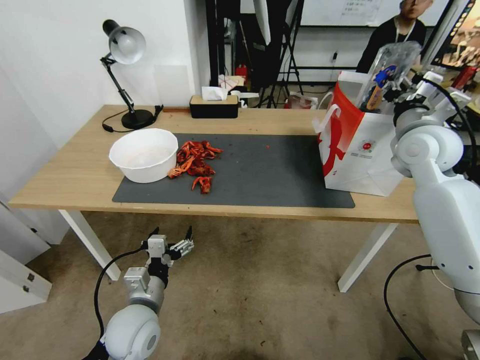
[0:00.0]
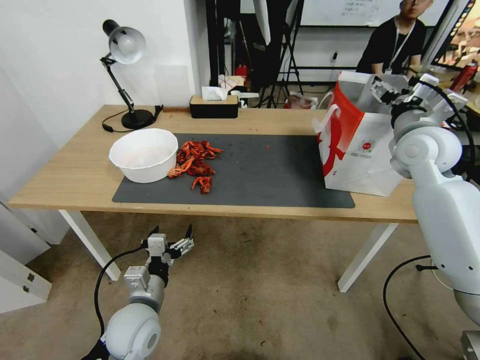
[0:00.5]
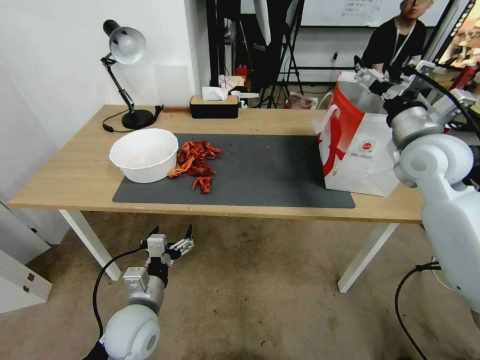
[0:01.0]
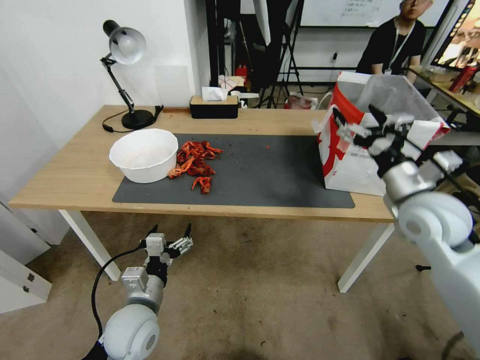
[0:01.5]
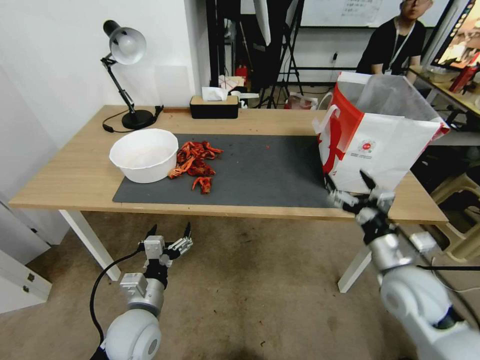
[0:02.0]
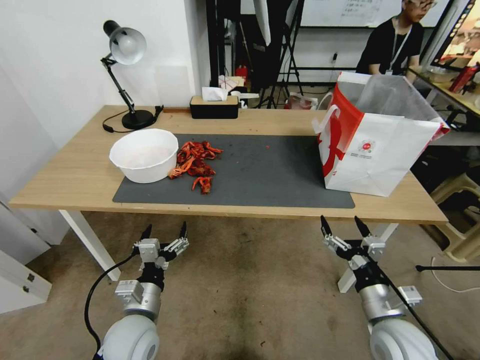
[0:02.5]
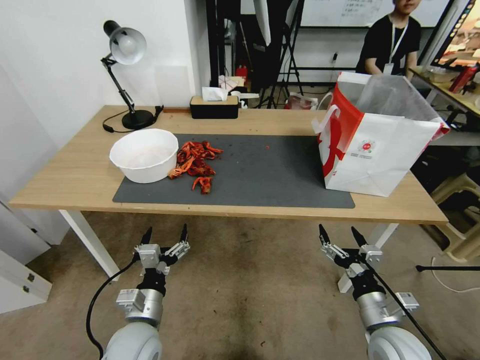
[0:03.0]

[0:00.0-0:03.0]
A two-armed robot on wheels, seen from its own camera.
Task of the whole recording: Close the takeout container lid, then place the container into the takeout bag.
0:00.0 to 0:01.5: The right gripper travels backward and downward by some 15 cm, and opens.
0:01.5 to 0:03.0: The right gripper heads downward and backward, covering approximately 25 cm.
